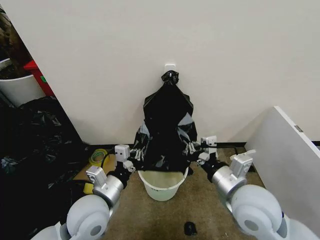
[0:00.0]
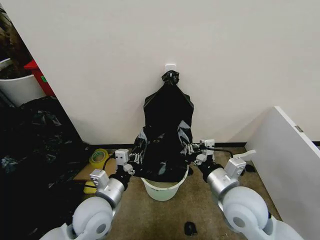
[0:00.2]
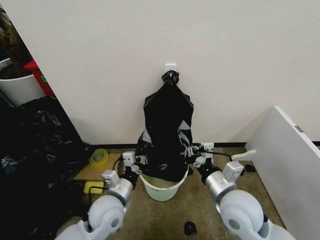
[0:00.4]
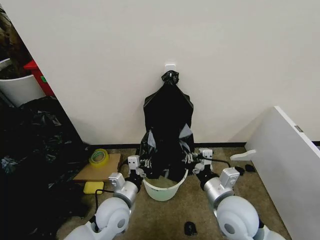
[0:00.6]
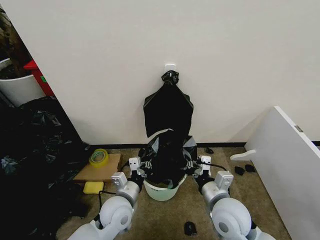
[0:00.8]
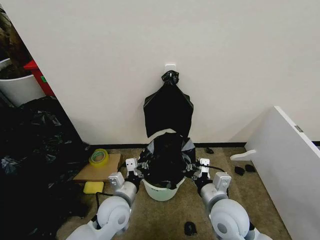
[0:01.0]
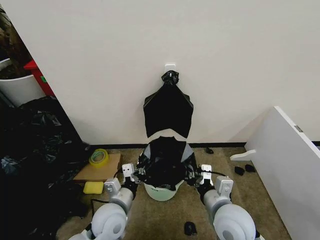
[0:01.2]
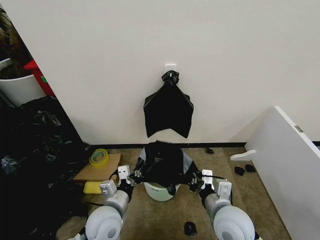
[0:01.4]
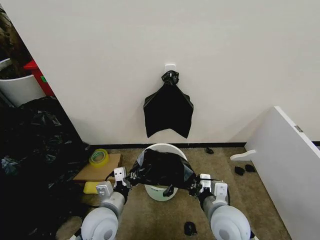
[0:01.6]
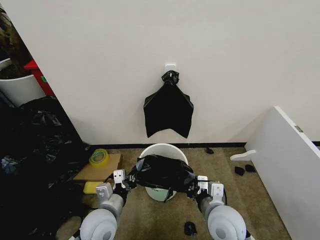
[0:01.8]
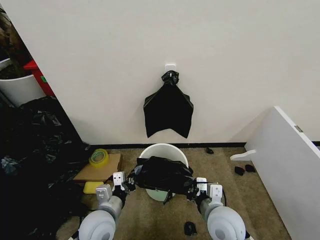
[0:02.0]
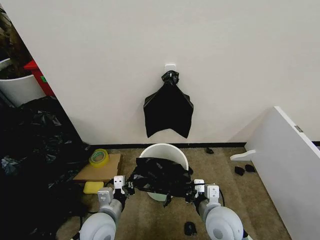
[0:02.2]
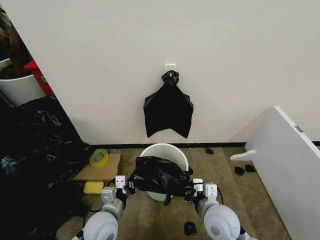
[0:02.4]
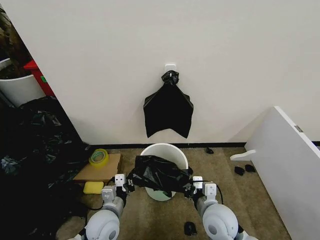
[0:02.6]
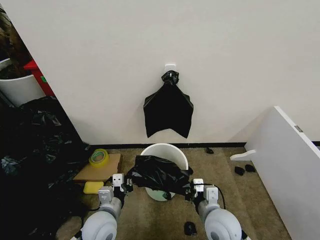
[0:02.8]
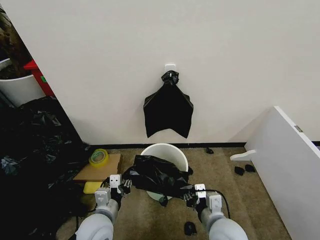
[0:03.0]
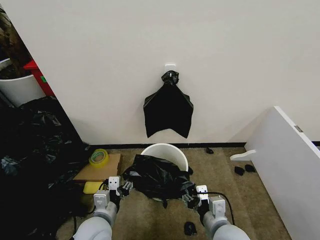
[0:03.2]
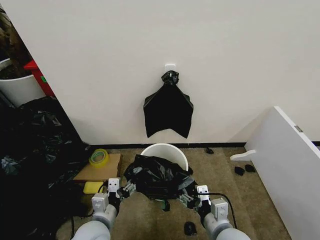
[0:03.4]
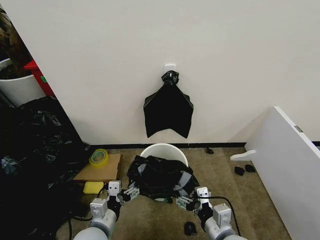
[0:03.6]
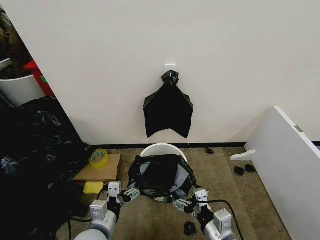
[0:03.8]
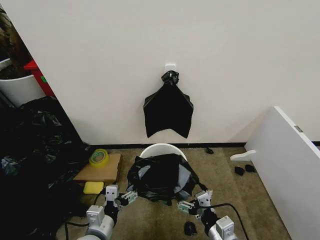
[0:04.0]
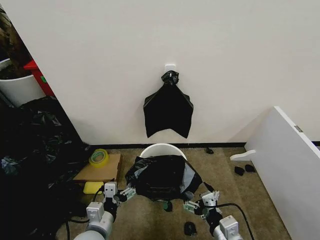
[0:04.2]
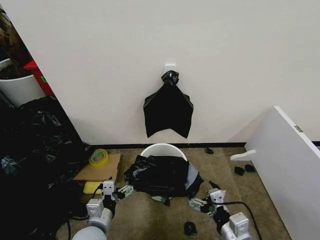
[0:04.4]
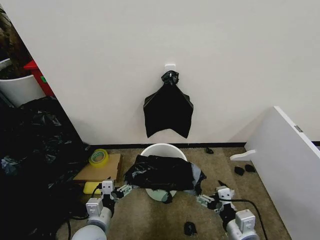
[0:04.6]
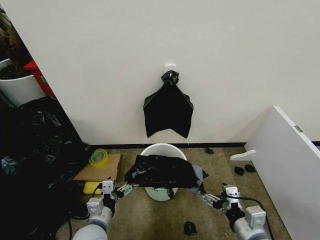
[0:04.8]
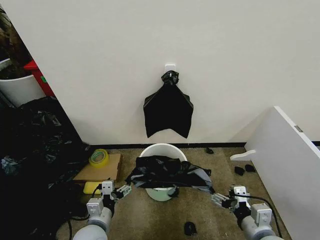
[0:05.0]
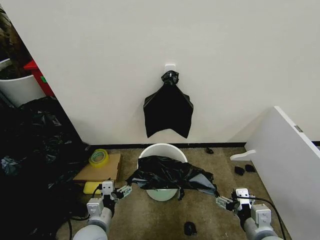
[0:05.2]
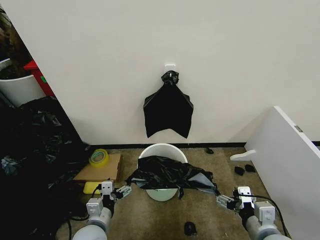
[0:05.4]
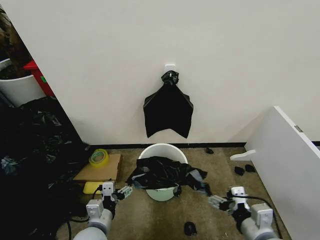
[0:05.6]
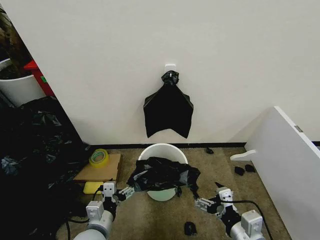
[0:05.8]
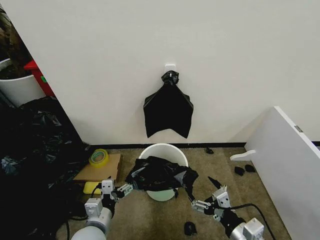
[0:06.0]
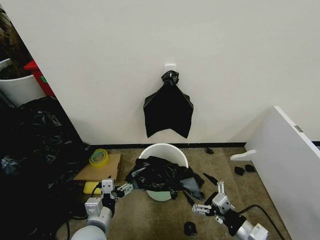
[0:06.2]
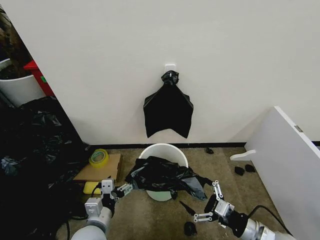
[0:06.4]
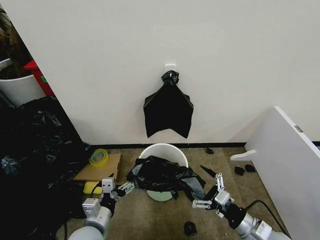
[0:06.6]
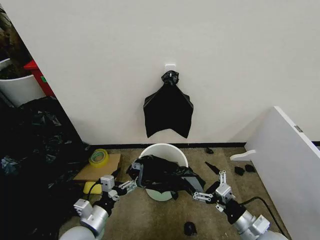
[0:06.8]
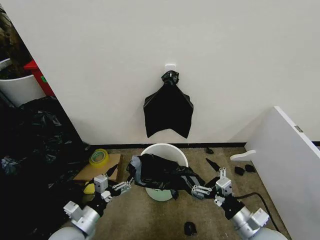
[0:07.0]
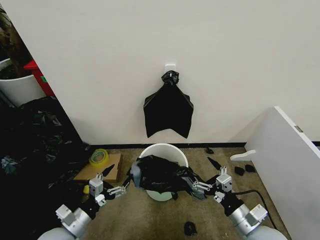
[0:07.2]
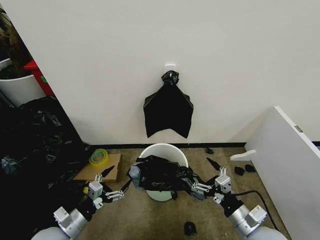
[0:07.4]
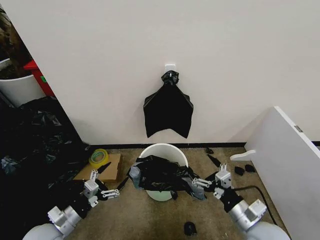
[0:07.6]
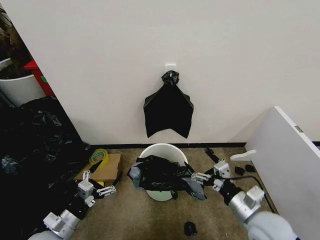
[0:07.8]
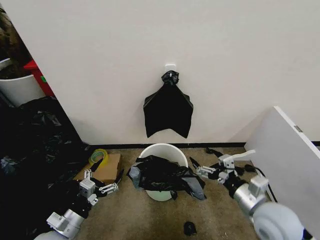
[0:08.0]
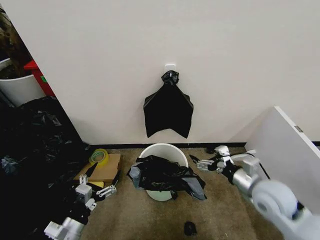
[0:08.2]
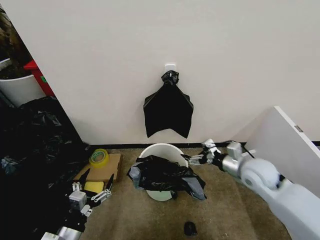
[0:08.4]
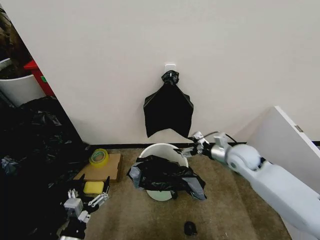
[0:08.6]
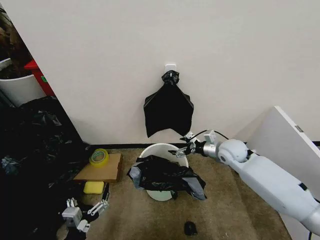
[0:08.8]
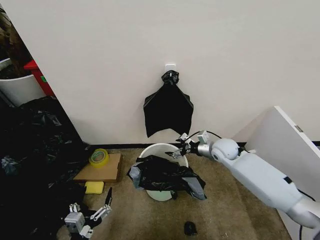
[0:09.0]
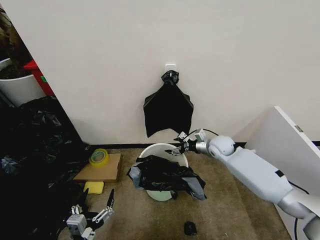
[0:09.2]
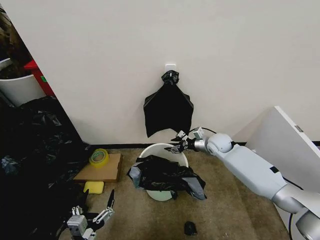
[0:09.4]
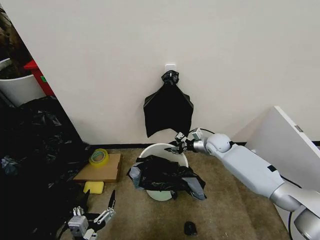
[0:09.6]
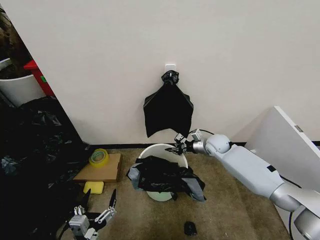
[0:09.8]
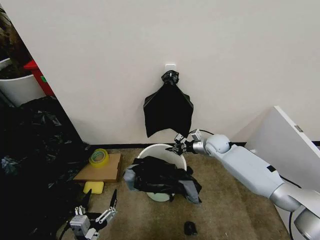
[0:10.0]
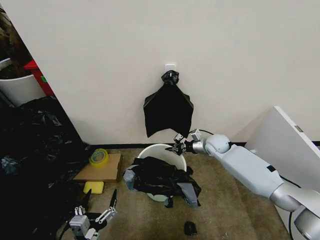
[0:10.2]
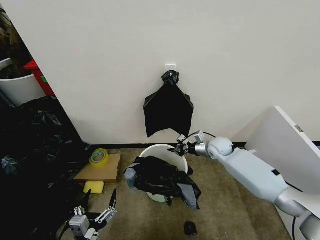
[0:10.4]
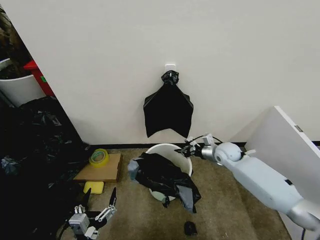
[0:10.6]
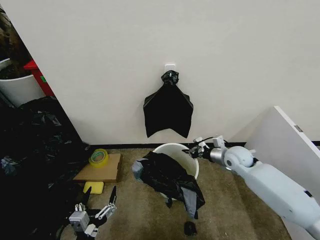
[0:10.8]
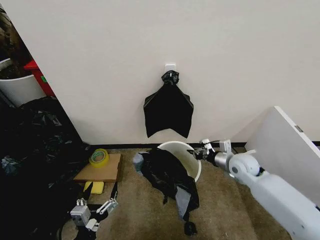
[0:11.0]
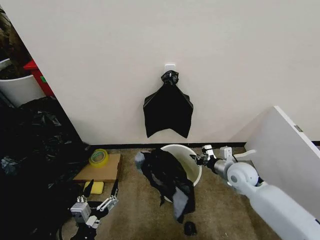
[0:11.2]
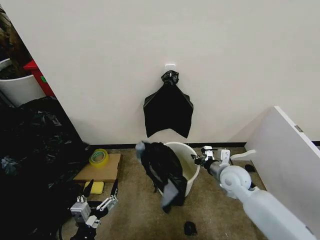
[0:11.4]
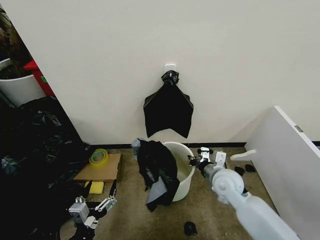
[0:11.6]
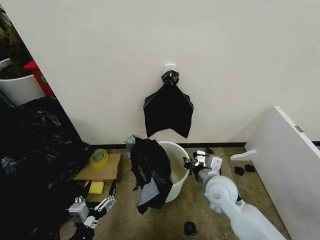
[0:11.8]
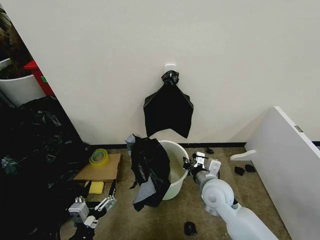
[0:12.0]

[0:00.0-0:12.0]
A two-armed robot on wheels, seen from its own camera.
Task of the whole recording: Place the garbage bag over the trash bin.
0:00.0 to 0:01.6: Both grippers move downward, roughly 10 cm.
0:01.6 to 0:03.0: The right gripper opens.
0:03.0 to 0:04.4: The left gripper opens up. Meanwhile the right gripper travels backward and to the right by some 10 cm, and opens.
0:06.0 to 0:07.6: The right gripper moves forward, roughly 5 cm; the left gripper moves to the left, roughly 15 cm.
0:07.6 to 0:09.0: The left gripper moves backward and to the right, roughly 15 cm; the right gripper heads forward, covering about 30 cm.
0:09.0 to 0:10.4: The right gripper closes up.
0:10.4 to 0:12.0: The right gripper is displaced backward by approximately 20 cm.

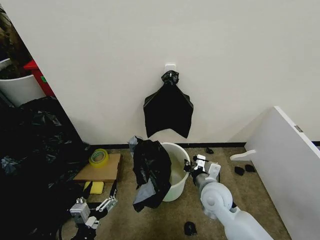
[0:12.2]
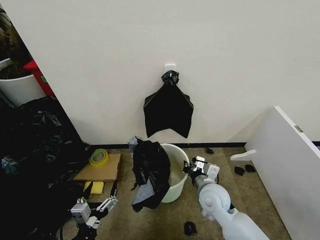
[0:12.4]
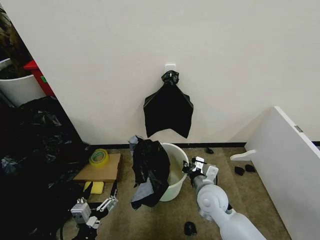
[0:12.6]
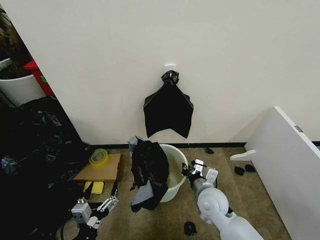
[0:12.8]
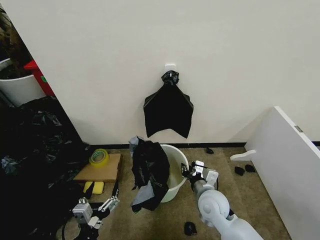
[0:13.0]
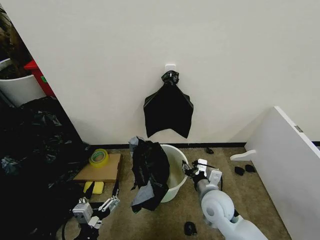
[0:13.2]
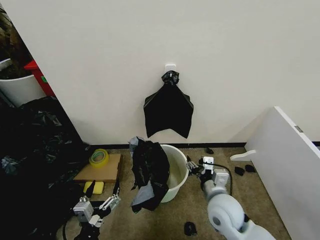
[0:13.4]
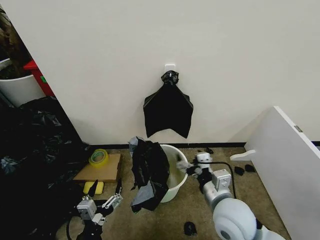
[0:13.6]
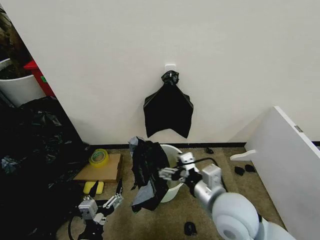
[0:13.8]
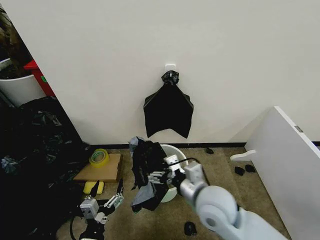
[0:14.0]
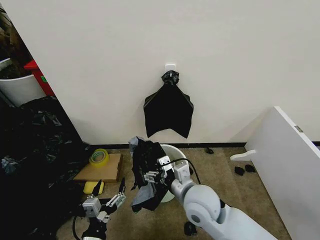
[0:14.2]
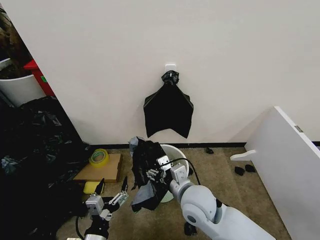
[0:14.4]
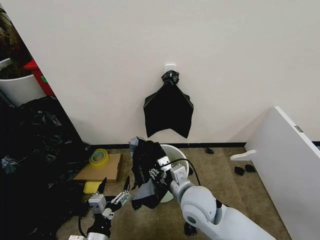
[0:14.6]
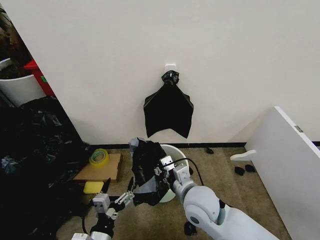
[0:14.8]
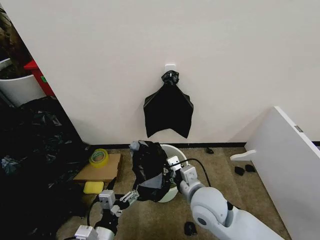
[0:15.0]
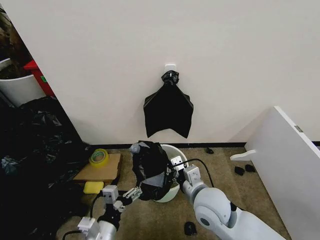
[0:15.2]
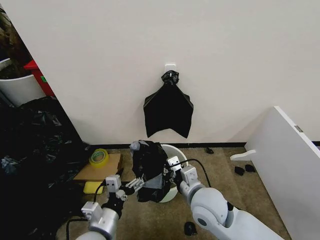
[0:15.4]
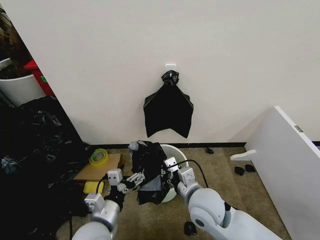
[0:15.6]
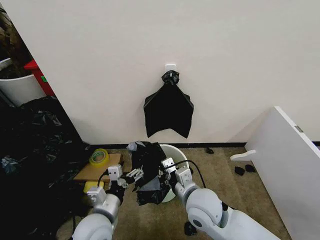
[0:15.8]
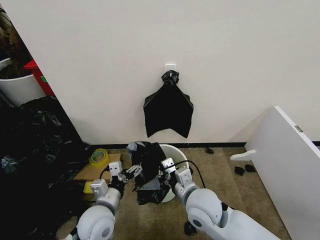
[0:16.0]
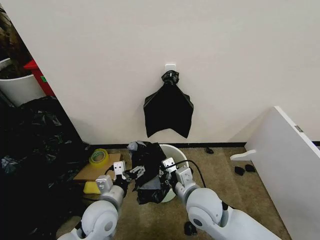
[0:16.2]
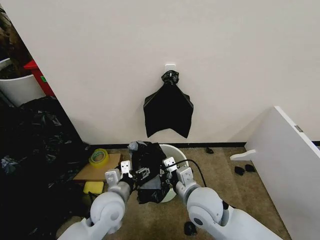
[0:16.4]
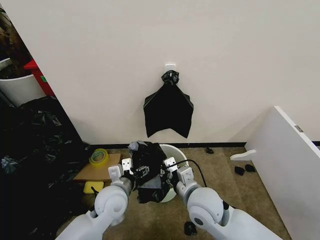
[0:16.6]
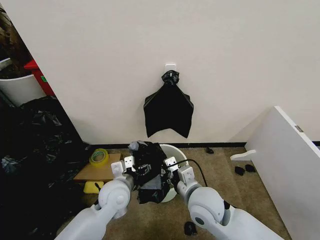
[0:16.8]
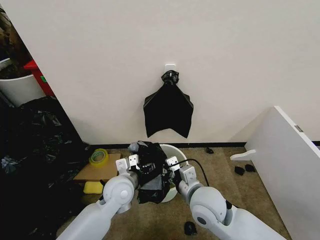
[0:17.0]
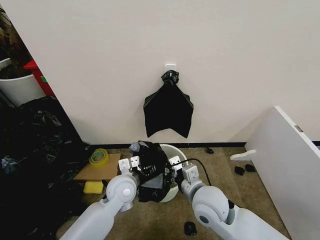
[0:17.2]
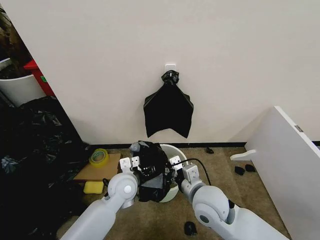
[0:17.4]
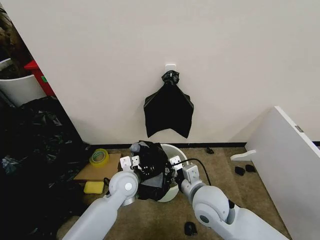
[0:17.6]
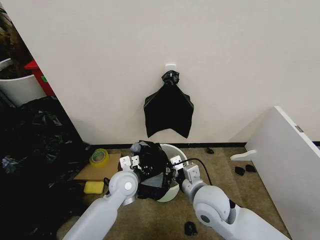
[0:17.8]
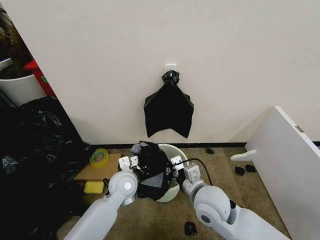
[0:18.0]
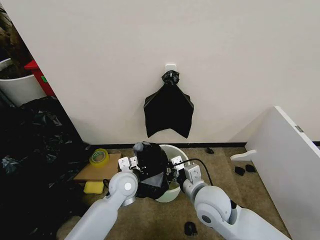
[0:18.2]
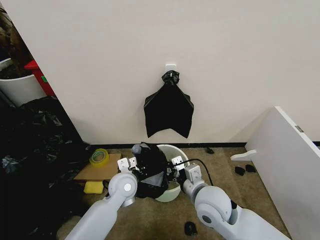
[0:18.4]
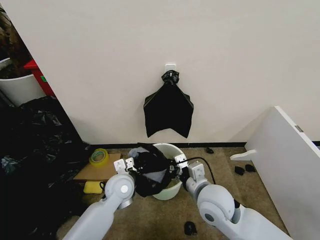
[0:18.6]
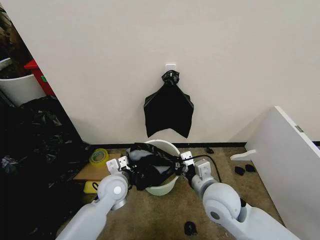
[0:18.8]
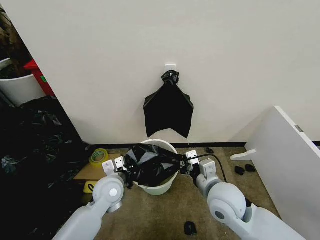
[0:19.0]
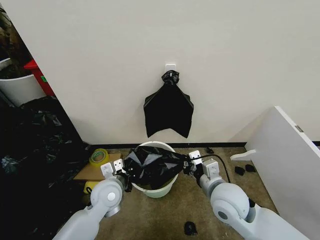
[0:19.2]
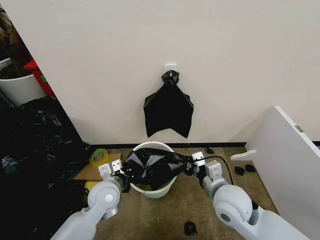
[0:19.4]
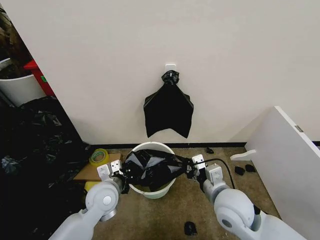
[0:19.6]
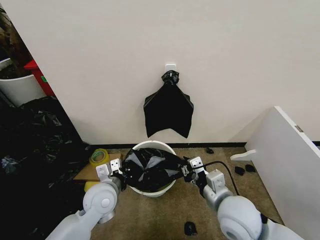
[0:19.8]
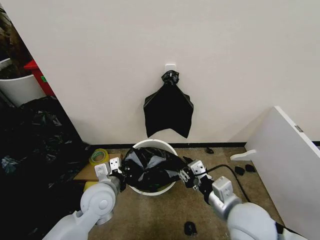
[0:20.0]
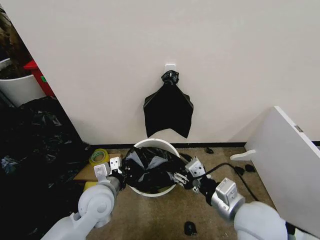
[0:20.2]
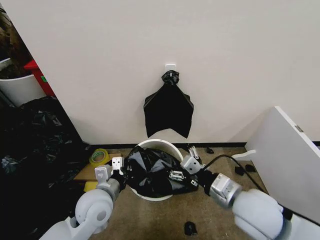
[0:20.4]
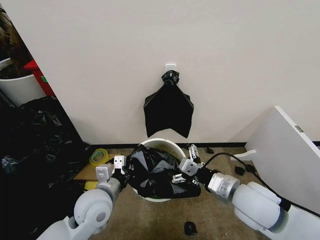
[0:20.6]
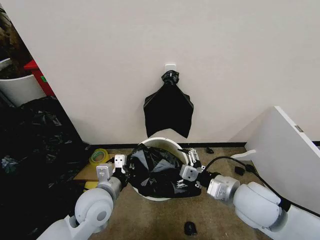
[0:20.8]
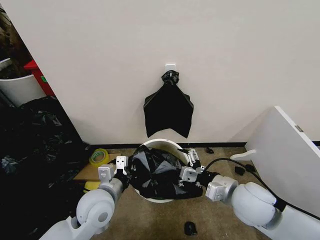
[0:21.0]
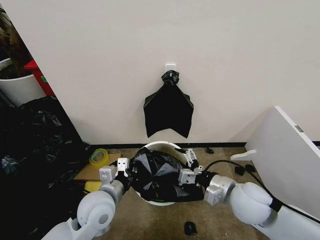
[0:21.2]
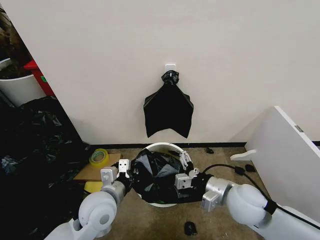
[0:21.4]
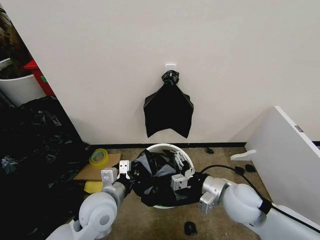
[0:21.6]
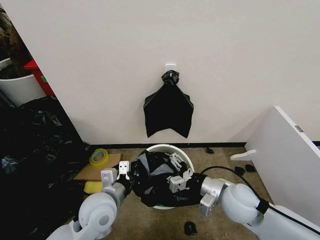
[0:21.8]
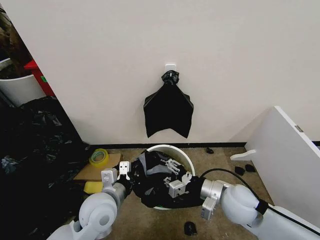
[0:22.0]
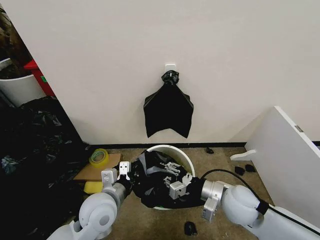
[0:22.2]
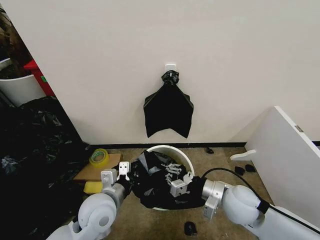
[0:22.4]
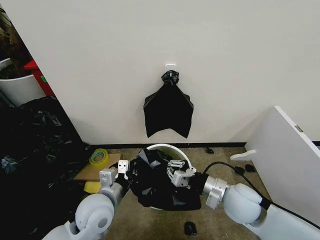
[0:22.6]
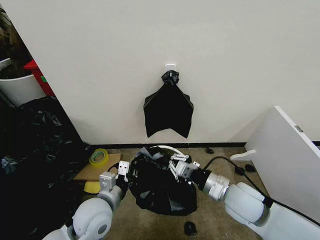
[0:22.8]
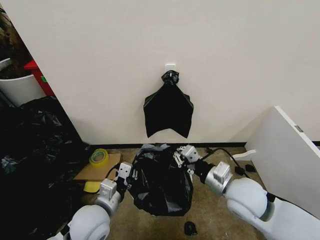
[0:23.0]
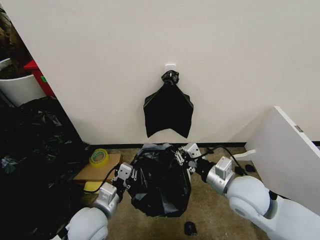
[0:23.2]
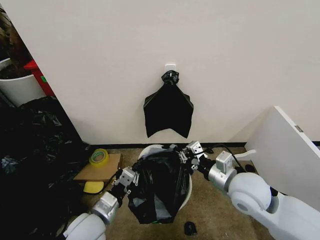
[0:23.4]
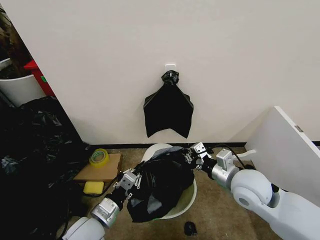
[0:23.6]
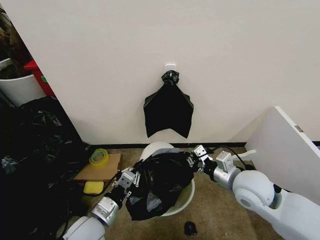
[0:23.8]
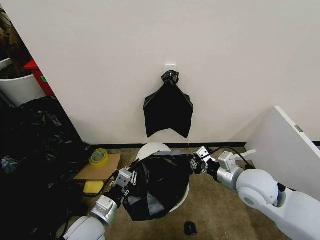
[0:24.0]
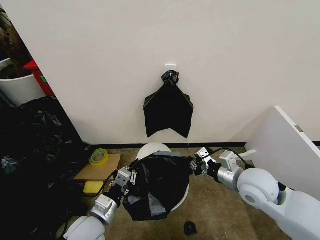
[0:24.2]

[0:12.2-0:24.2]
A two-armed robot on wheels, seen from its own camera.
Task of the whole recording: Place the garbage bag over the trash bin.
0:12.2 to 0:13.8: The right gripper heads upward and backward, covering about 15 cm, and opens its fingers.
0:13.8 to 0:15.2: The left gripper ends up some 5 cm from where it was; the right gripper goes some 5 cm downward, and closes.
0:15.2 to 0:16.6: The left gripper moves forward, approximately 15 cm.
0:16.6 to 0:18.2: The left gripper goes roughly 5 cm forward, and closes.
0:18.2 to 0:19.8: The left gripper goes approximately 10 cm to the left and backward; the right gripper shifts by approximately 5 cm.
0:19.8 to 0:21.2: The right gripper changes place by approximately 5 cm, and opens its fingers.
0:21.2 to 0:22.6: The right gripper closes.
0:22.6 to 0:24.2: The left gripper is displaced downward by approximately 5 cm. The right gripper shifts by some 5 cm.
